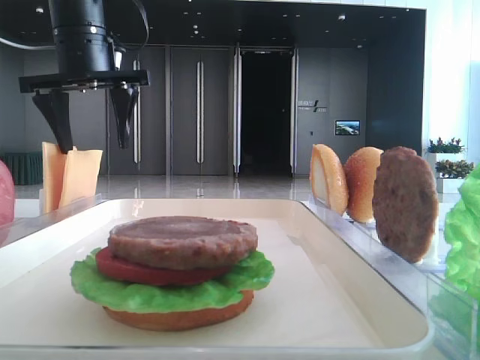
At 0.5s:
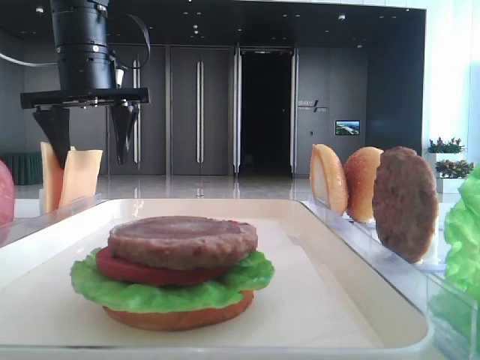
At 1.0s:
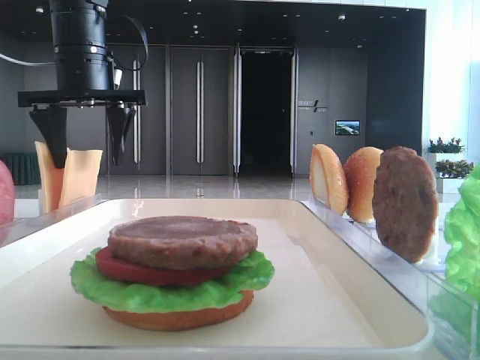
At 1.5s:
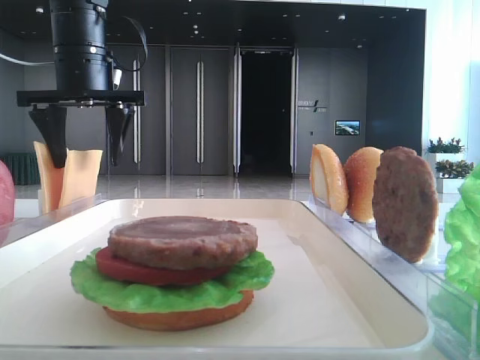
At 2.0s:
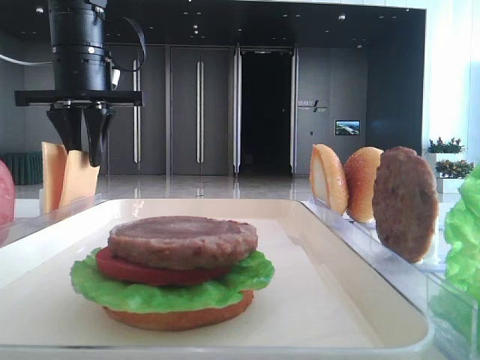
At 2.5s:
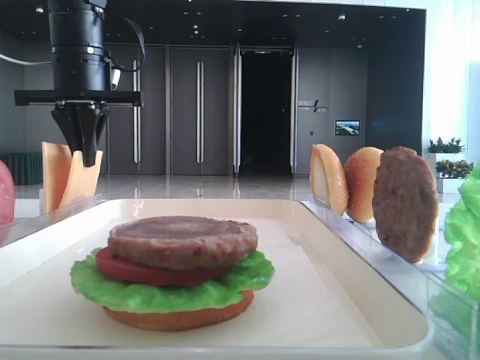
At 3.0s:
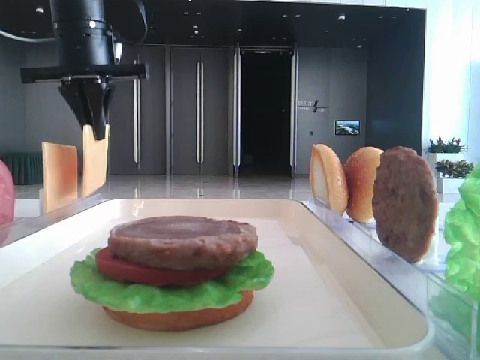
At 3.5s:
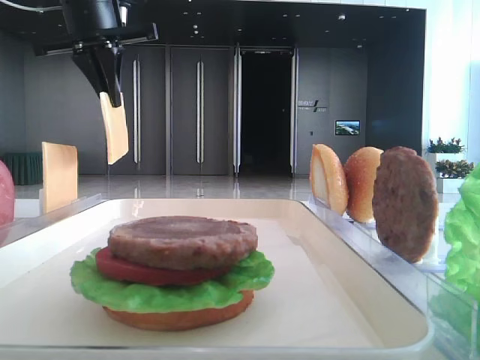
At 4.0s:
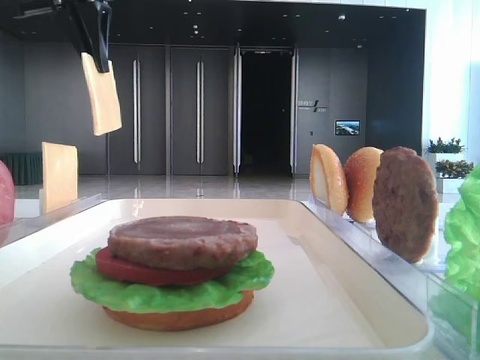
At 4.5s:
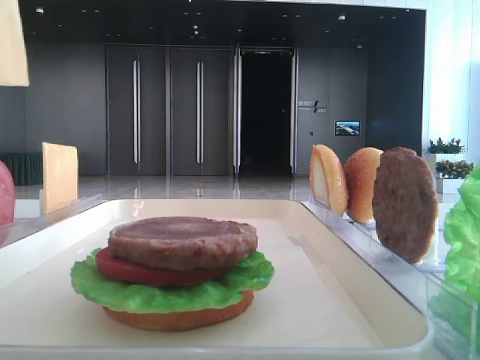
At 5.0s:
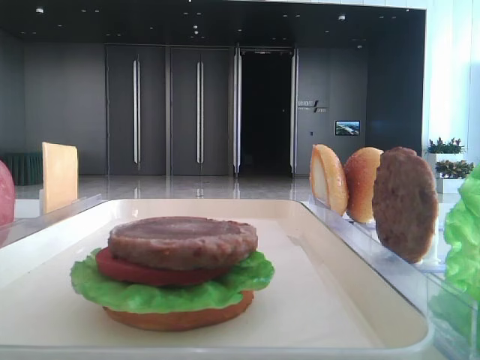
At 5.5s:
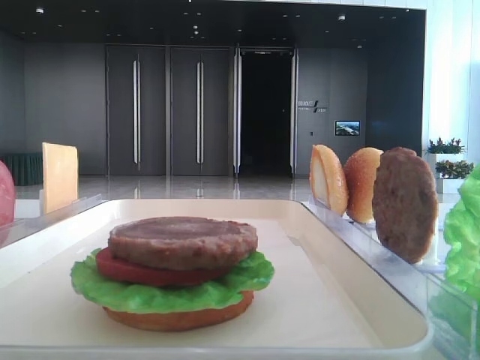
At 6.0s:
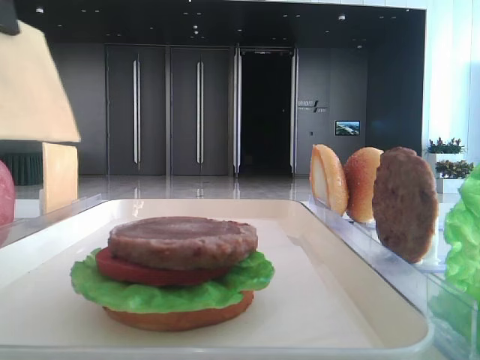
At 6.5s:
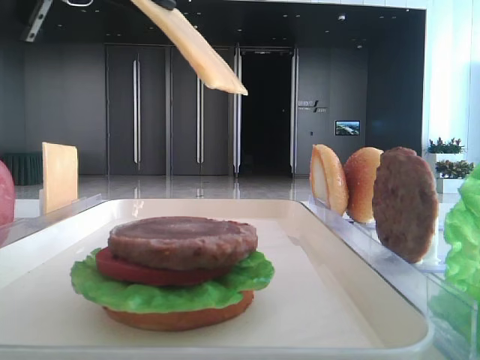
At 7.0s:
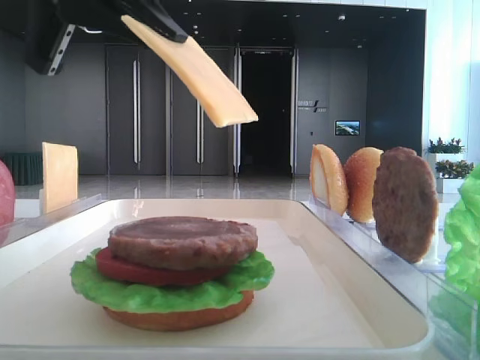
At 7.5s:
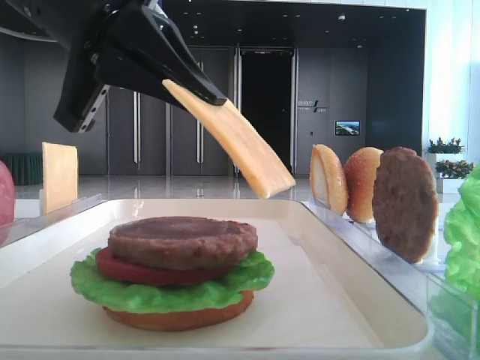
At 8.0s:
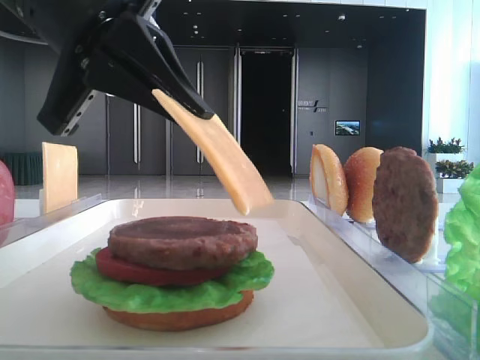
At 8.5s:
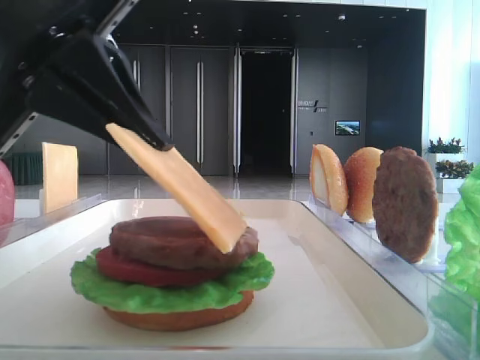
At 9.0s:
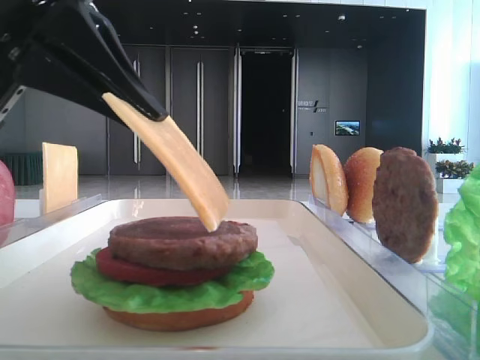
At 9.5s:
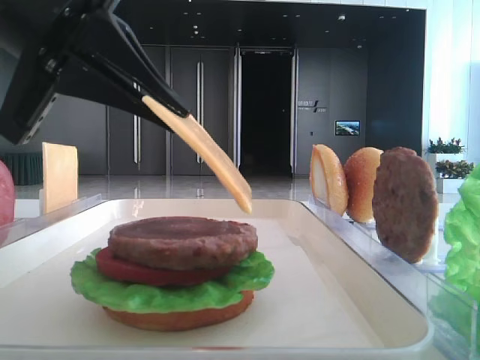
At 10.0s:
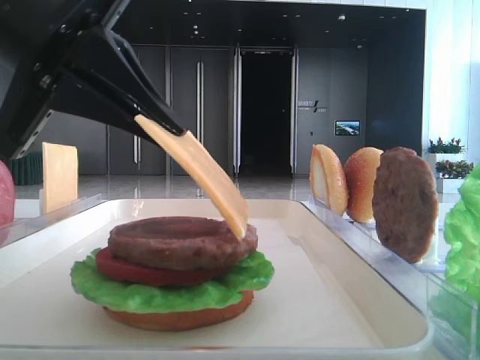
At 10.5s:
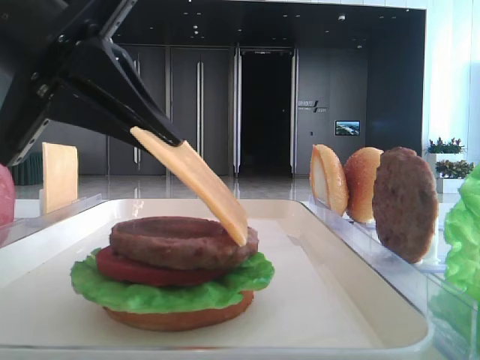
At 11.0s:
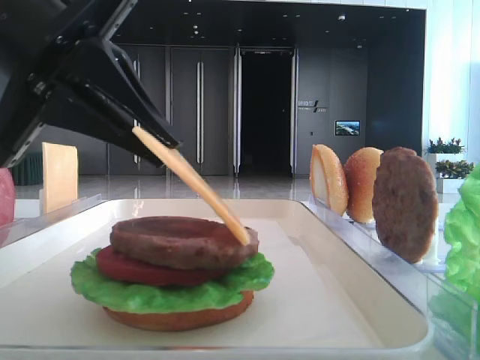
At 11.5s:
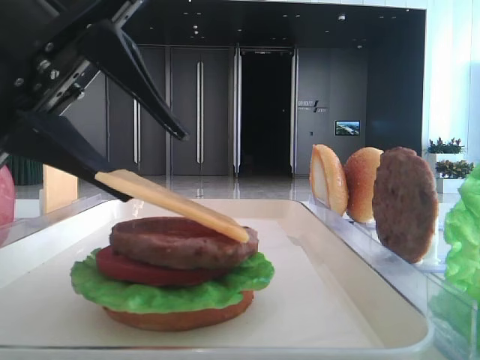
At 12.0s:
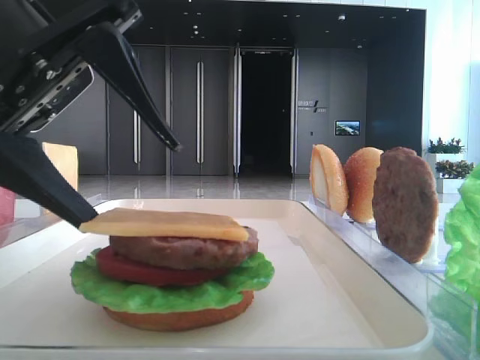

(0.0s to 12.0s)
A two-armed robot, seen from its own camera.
Step, 0.0s - 2.5s: Pick up the cheese slice with the left hand.
0.0s - 2.0s: The left gripper closes its fingers.
2.0s - 4.0s: The left gripper is displaced upward and backward by about 10 cm.
4.0s - 6.0s: The left gripper shifts roughly 15 cm backward.
6.0s - 8.0s: The left gripper heads downward and to the right, covering about 10 cm.
8.0s - 10.0s: There are only small adjustments of the grippers.
10.0s - 12.0s: The left gripper opens.

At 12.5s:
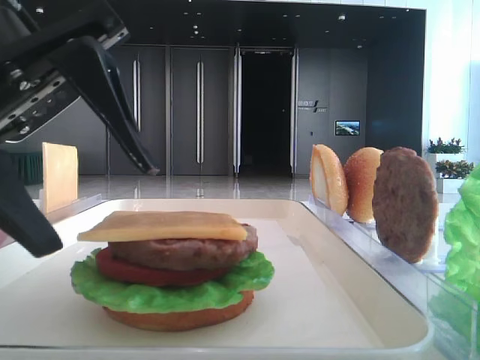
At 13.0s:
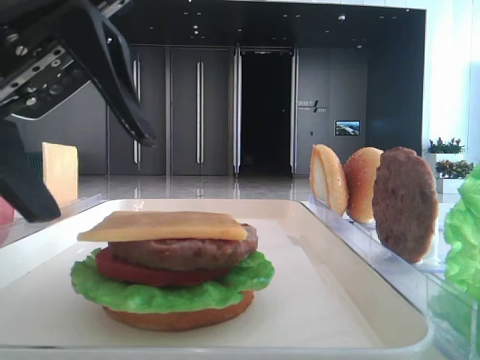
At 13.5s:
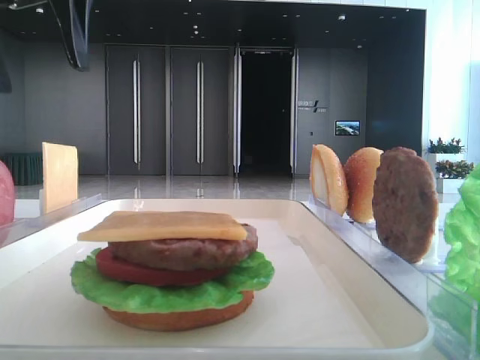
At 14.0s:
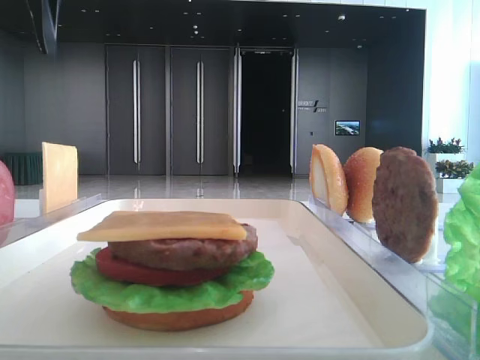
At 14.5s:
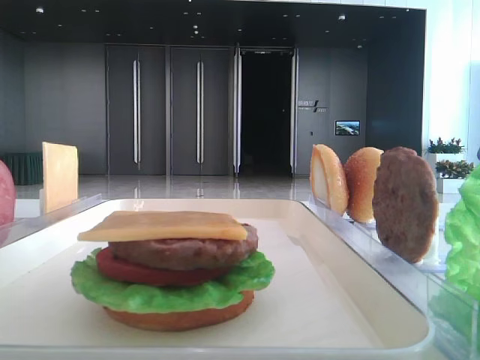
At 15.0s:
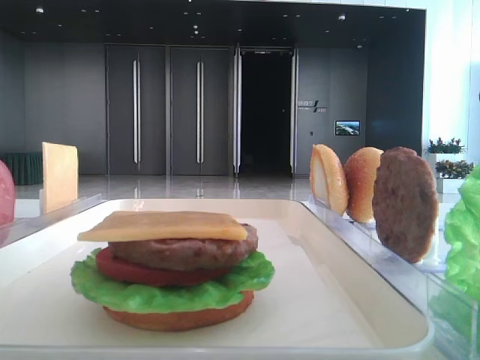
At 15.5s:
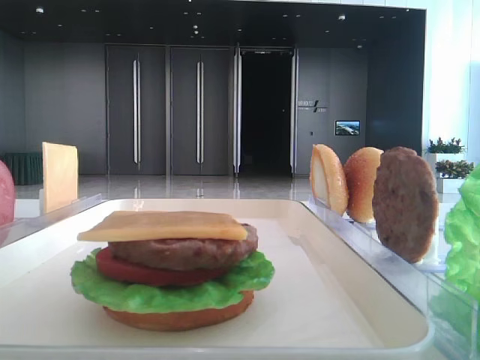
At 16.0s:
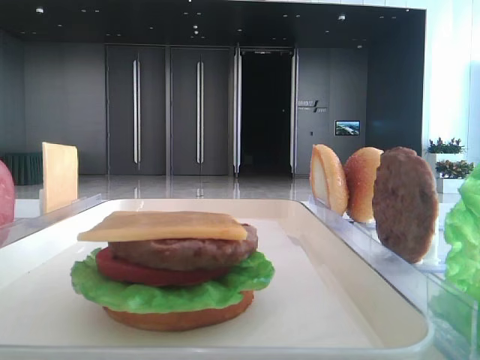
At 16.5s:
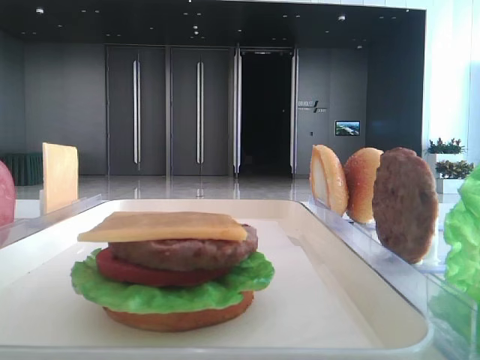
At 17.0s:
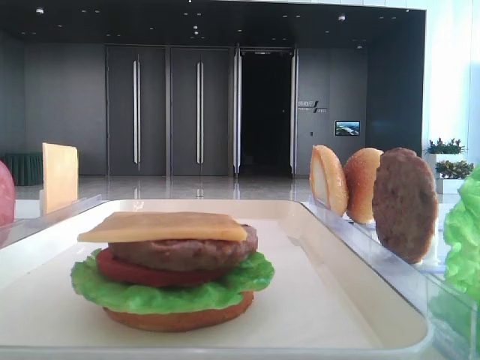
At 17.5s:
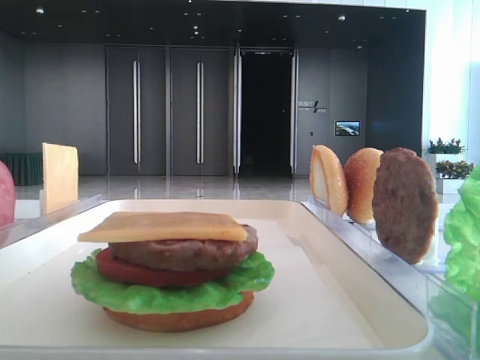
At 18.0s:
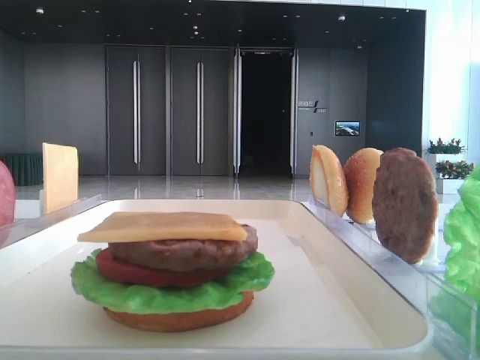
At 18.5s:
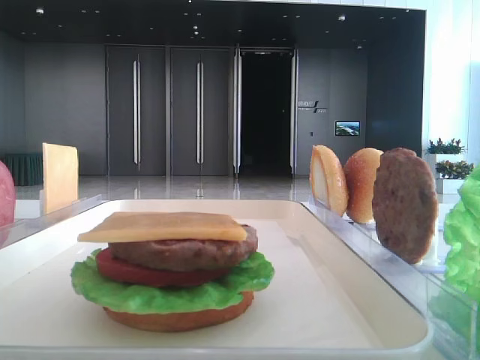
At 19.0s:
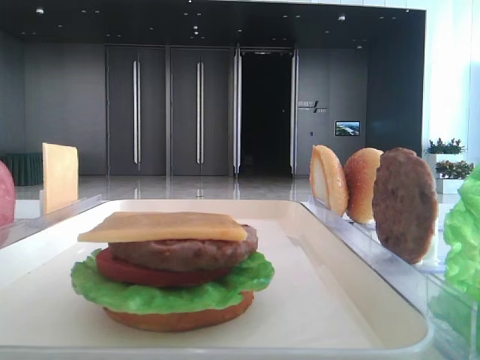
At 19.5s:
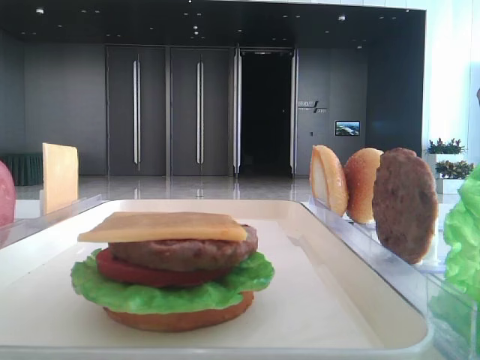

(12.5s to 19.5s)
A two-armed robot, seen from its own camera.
12.5s - 14.5s: The left gripper travels to the left, upward and forward by some 30 cm.

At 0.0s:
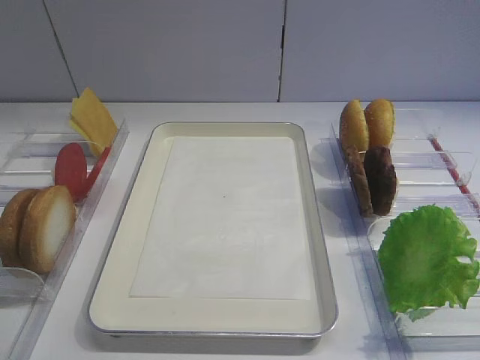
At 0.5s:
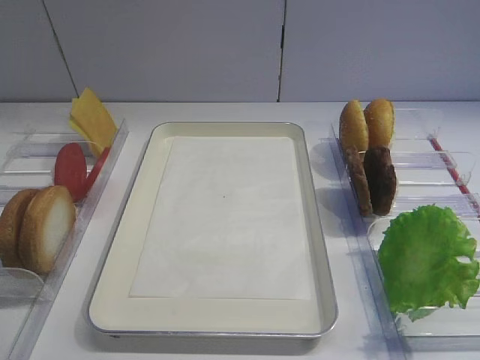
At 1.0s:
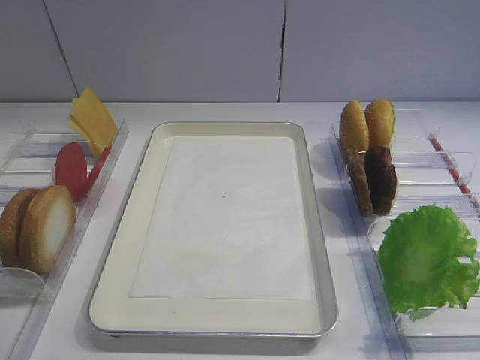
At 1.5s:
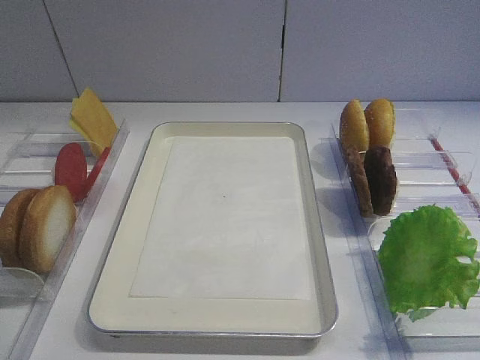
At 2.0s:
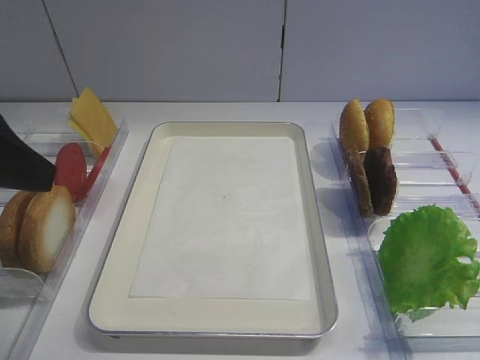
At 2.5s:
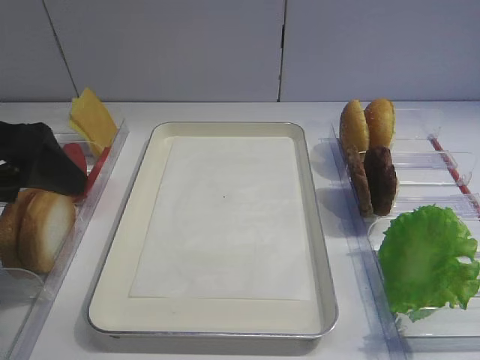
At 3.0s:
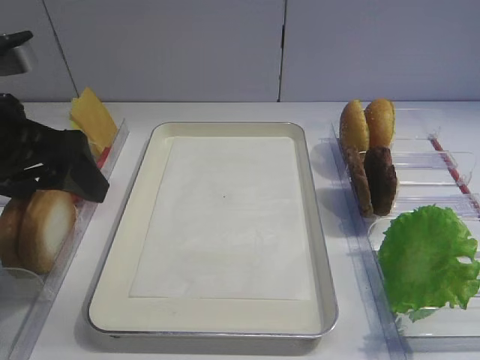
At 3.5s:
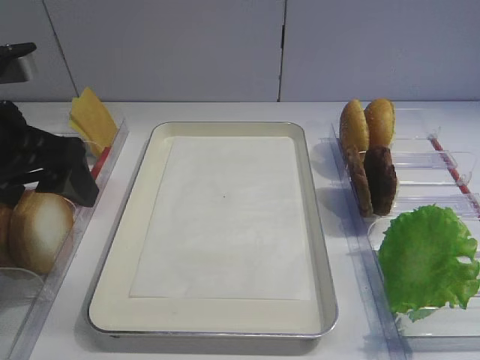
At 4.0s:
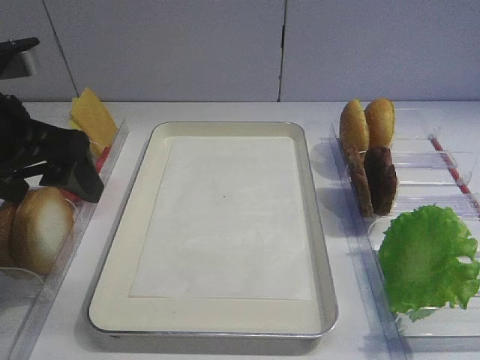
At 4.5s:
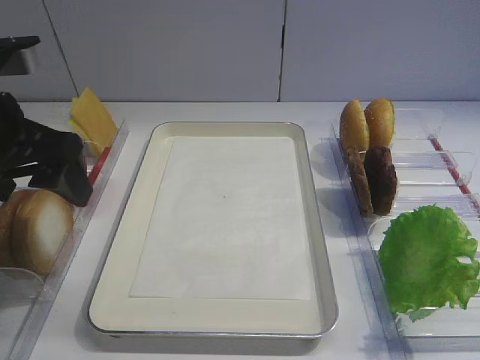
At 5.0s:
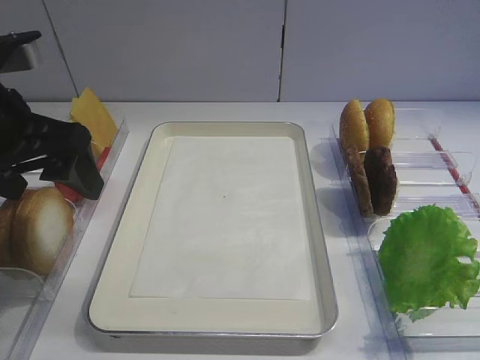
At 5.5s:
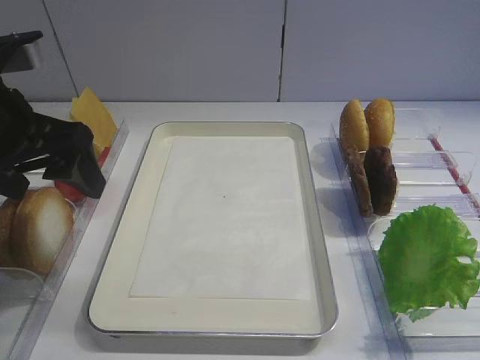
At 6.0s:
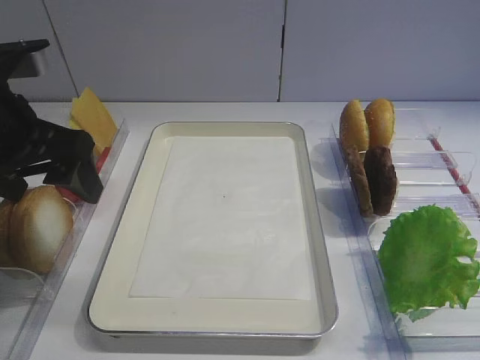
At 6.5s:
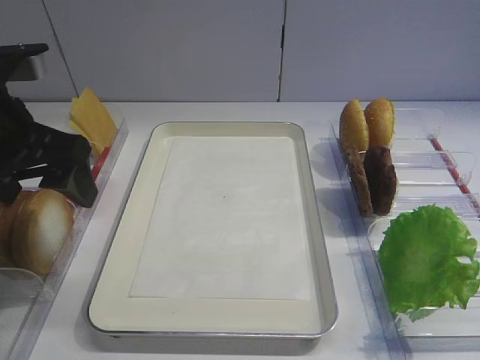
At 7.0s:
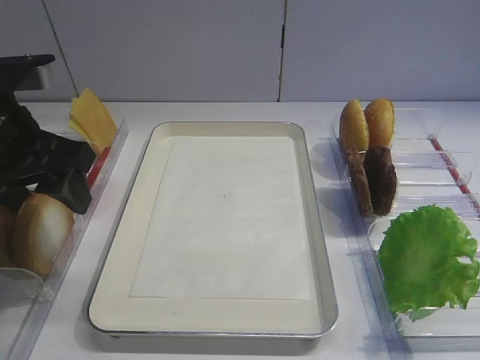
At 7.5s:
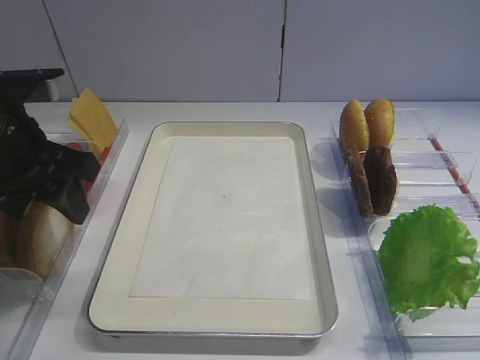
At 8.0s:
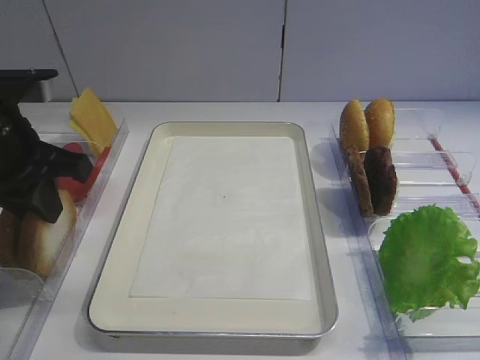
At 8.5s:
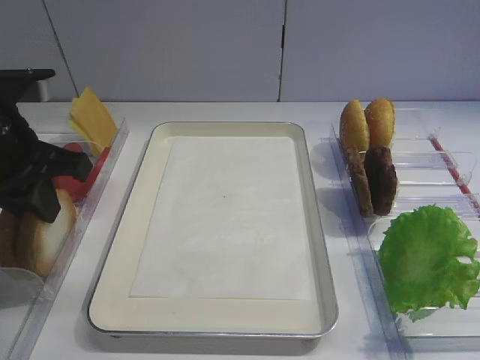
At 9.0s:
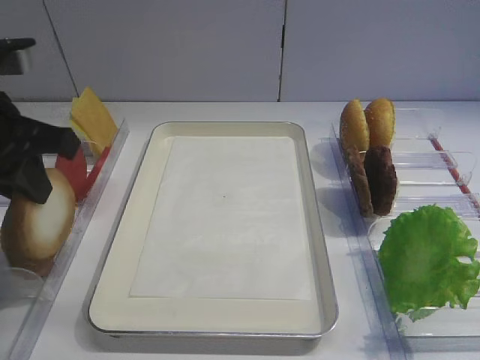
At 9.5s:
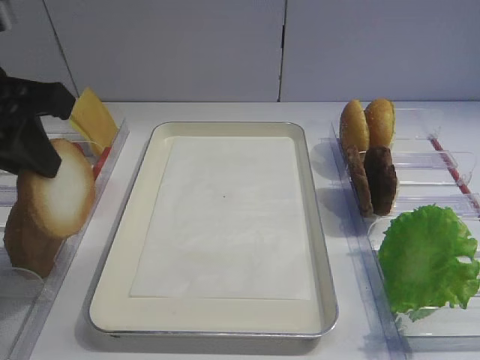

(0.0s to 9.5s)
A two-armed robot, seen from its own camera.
Step, 0.0s - 9.0s: Pick up the bread slice with the left gripper.
2.0s - 4.0s: The left gripper travels forward by about 5 cm.
4.0s - 5.5s: The grippers make only small movements.
5.5s - 7.5s: The left gripper closes.
7.5s - 9.5s: The left gripper goes some 5 cm upward, and closes up.
